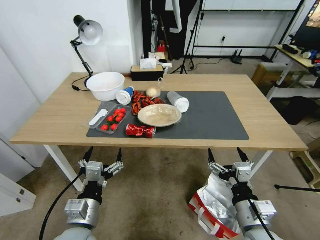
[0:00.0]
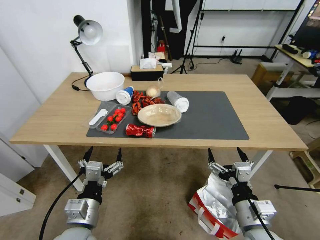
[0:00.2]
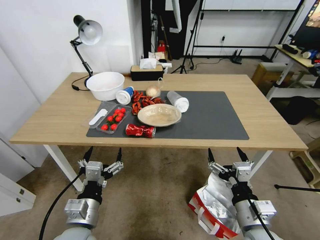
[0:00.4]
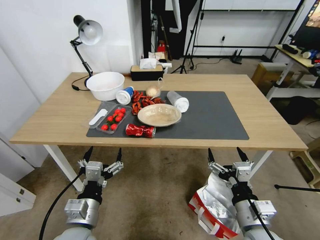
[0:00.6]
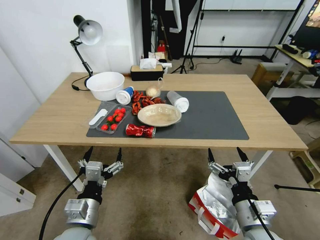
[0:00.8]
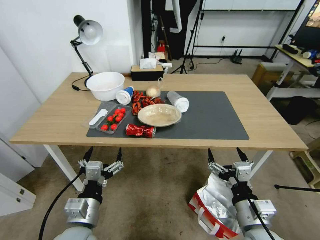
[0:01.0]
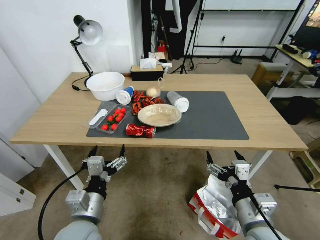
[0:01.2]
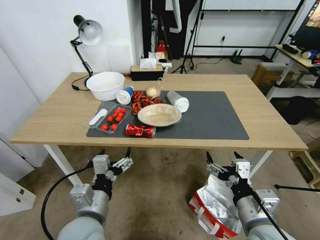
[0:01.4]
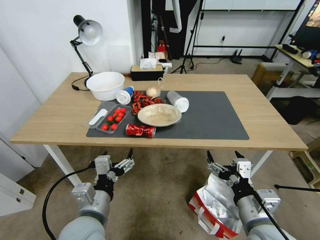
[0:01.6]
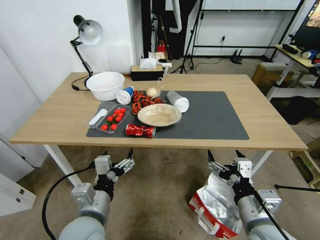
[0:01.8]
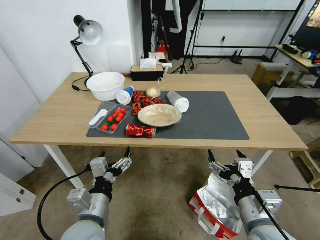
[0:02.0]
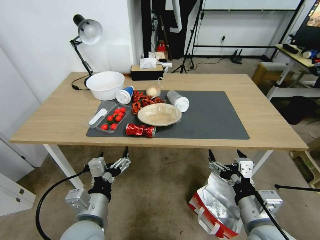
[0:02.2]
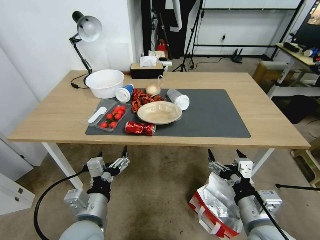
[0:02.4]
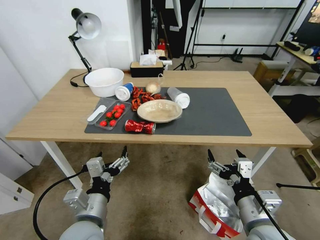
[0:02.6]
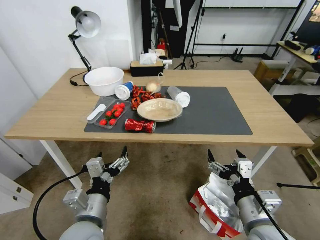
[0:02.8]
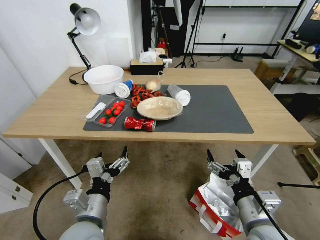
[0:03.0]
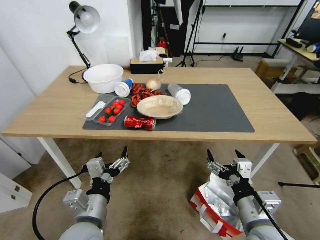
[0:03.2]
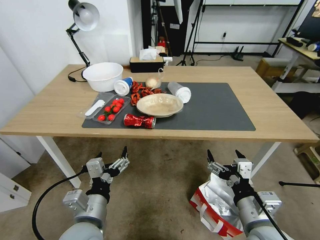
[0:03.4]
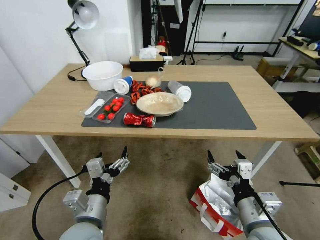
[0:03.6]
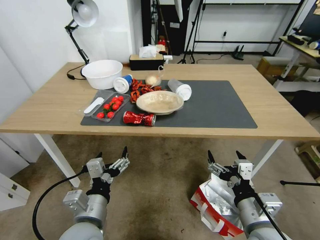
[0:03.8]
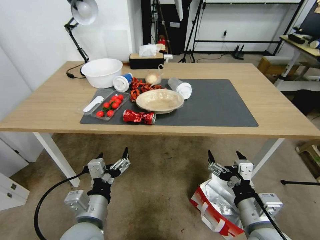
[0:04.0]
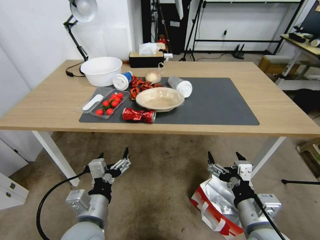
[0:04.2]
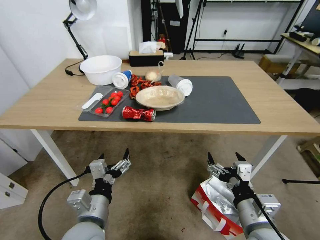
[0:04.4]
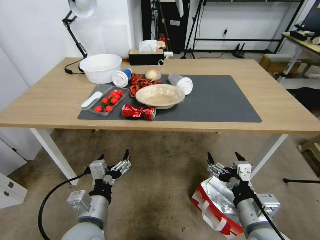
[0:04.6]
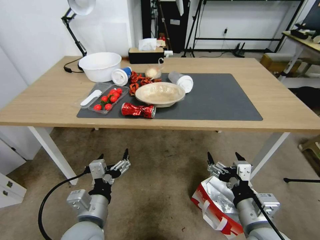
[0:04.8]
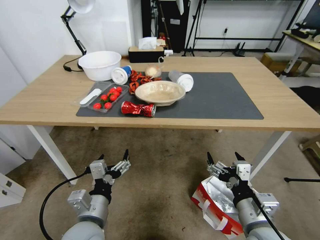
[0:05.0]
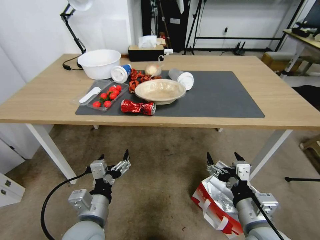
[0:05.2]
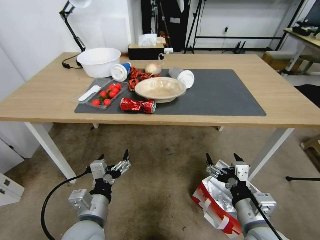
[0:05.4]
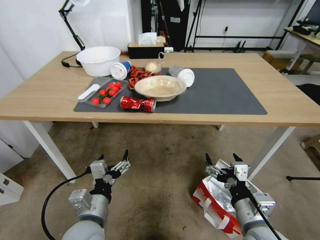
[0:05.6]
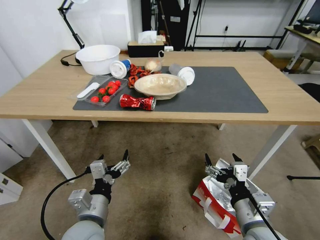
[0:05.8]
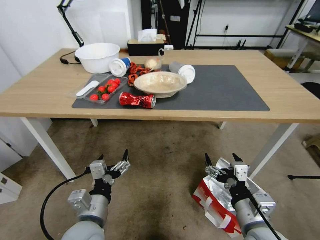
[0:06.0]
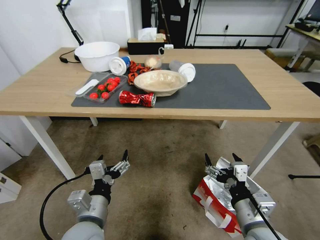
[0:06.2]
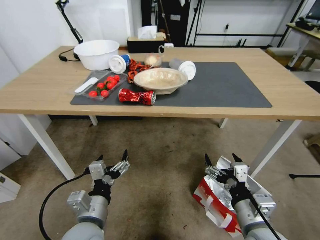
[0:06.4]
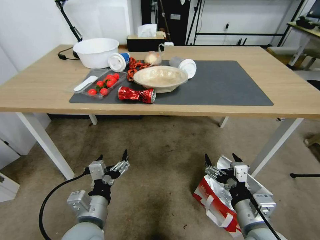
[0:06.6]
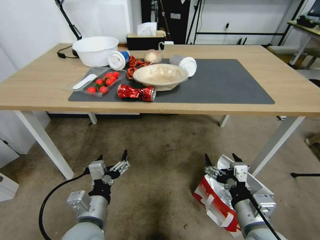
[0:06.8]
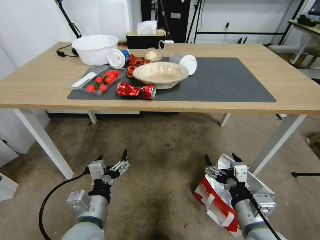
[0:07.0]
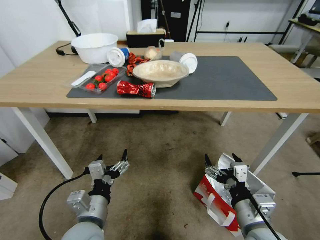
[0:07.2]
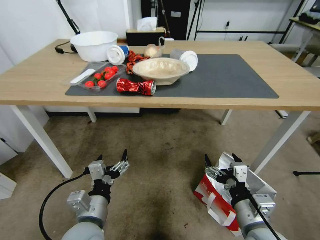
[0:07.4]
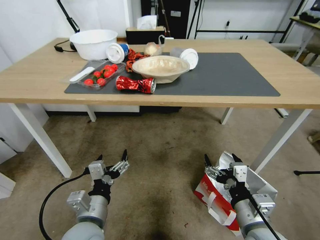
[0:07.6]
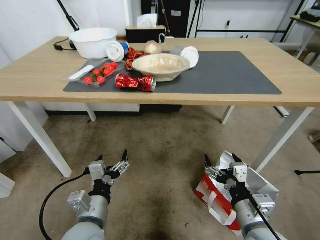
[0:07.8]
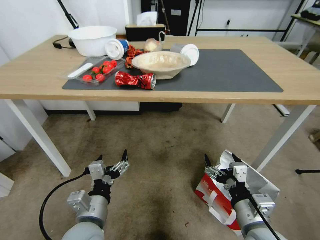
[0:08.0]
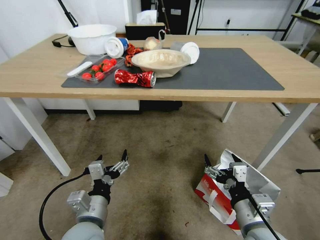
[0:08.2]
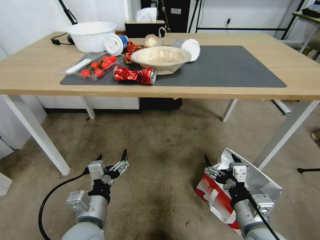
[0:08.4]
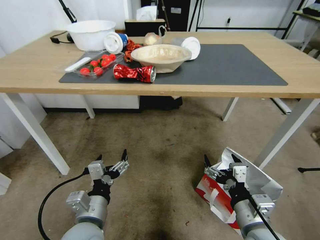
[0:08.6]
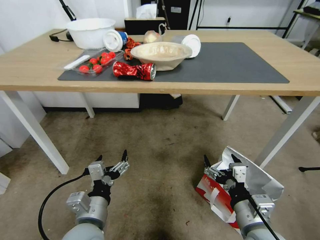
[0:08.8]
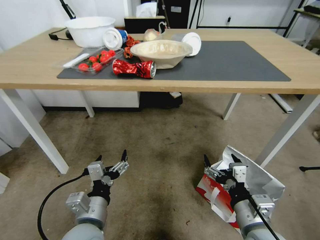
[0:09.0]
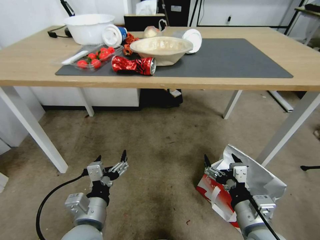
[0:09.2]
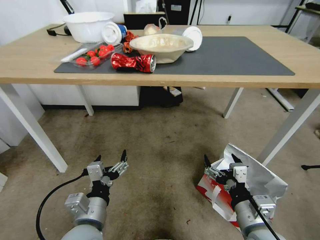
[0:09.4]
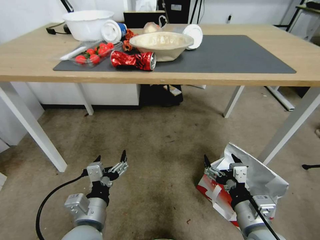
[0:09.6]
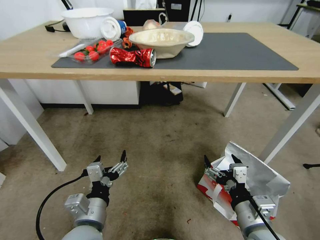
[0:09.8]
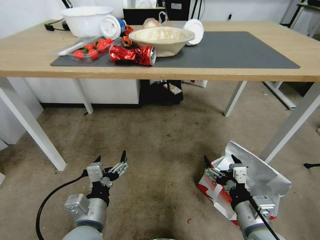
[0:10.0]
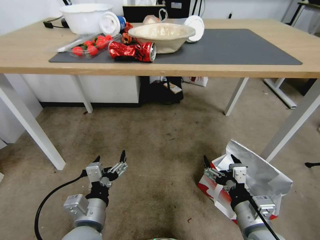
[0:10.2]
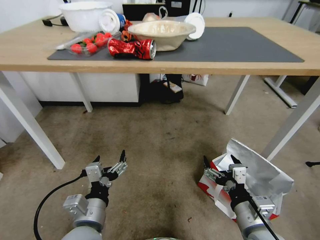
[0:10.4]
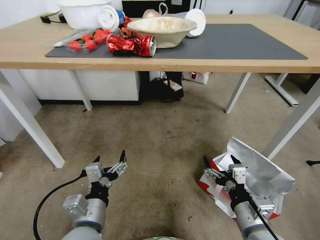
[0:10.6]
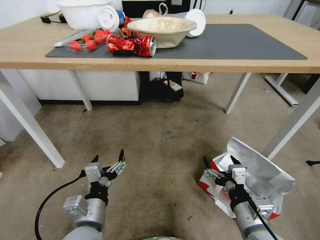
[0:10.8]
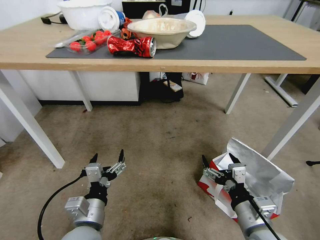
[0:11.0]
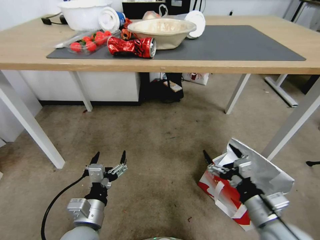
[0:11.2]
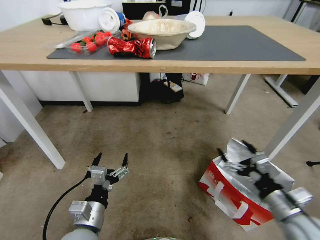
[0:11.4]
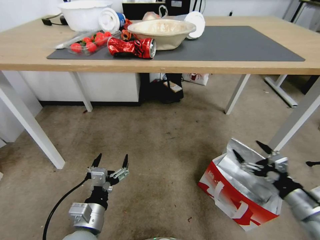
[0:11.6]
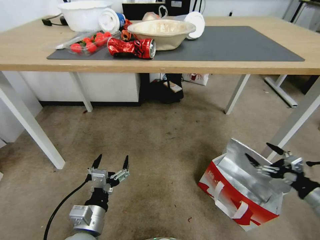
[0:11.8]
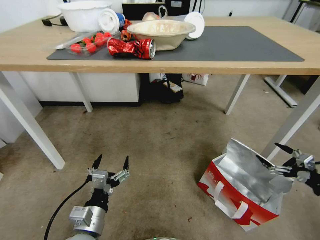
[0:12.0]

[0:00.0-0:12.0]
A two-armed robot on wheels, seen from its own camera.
Task of the whole recording: Pick up the food delivery bag from the floor and place it on the table.
0:10.4 to 0:12.0: The right gripper is displaced to the right by approximately 30 cm.

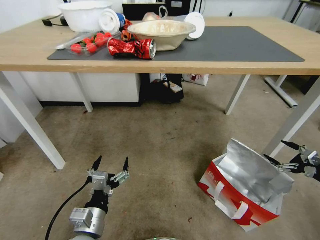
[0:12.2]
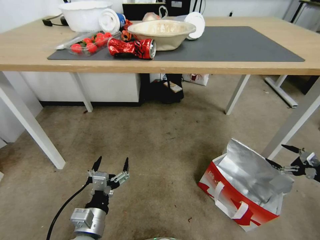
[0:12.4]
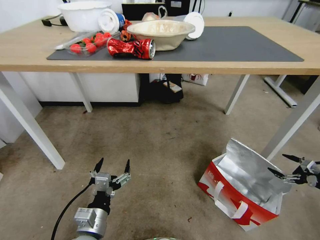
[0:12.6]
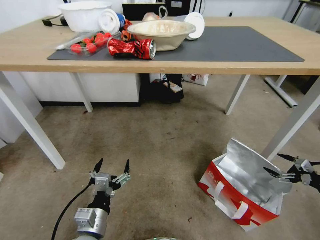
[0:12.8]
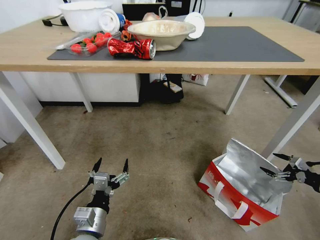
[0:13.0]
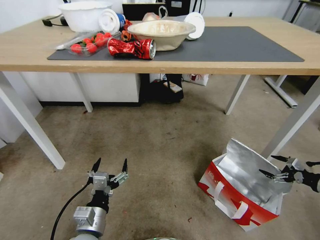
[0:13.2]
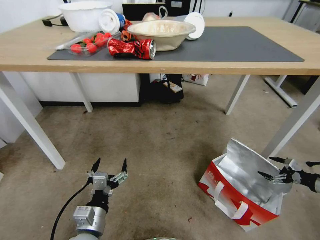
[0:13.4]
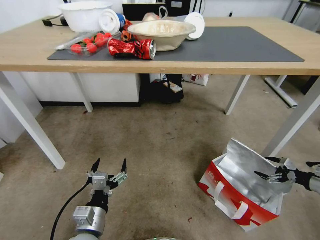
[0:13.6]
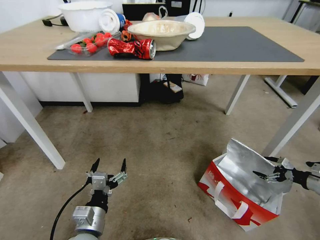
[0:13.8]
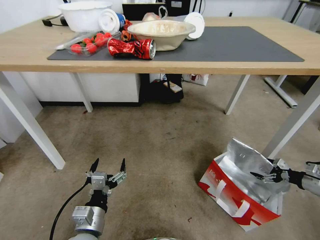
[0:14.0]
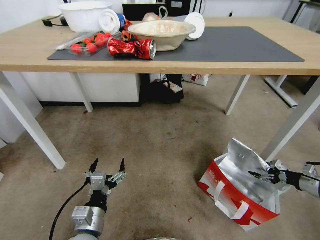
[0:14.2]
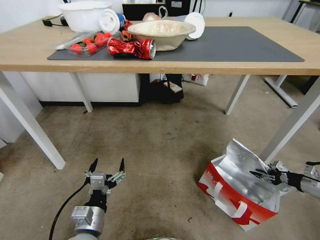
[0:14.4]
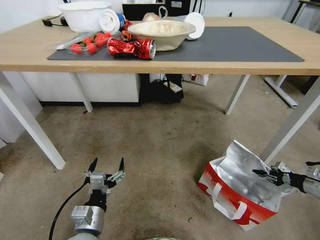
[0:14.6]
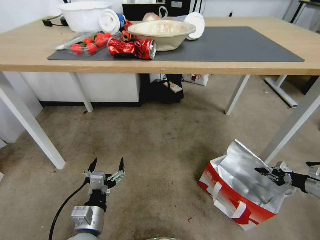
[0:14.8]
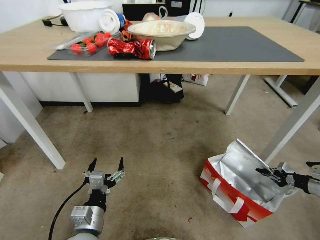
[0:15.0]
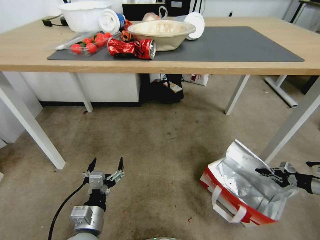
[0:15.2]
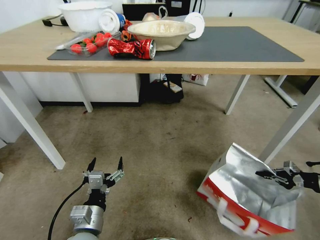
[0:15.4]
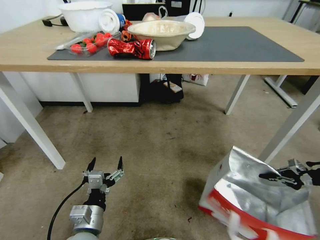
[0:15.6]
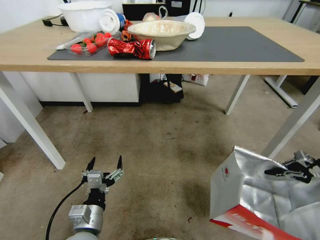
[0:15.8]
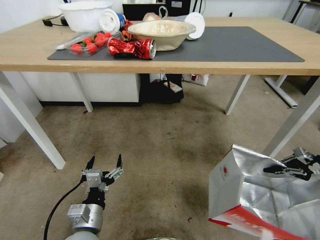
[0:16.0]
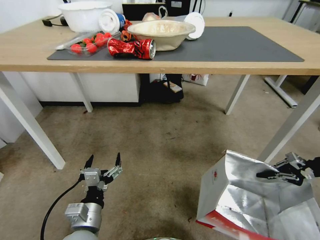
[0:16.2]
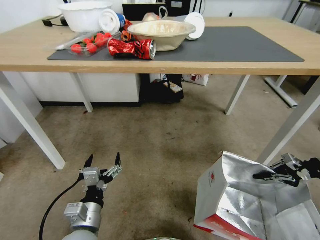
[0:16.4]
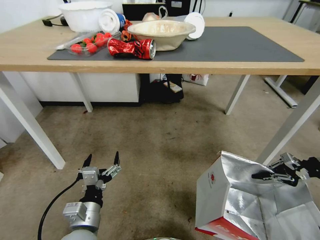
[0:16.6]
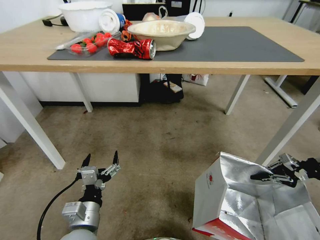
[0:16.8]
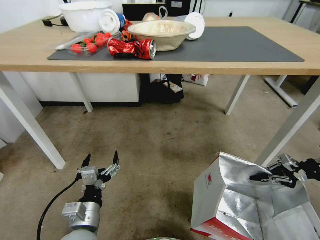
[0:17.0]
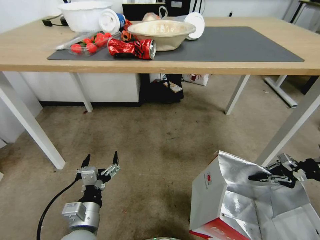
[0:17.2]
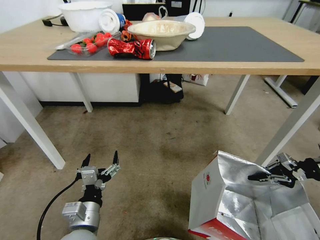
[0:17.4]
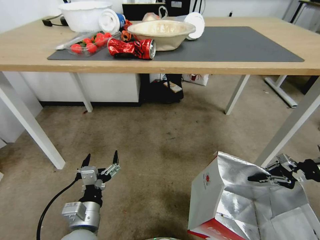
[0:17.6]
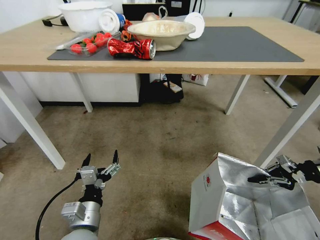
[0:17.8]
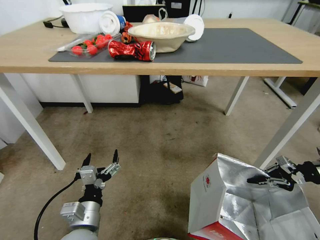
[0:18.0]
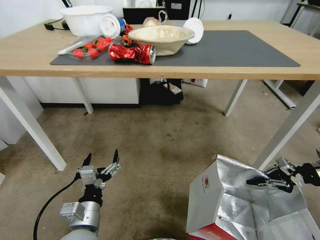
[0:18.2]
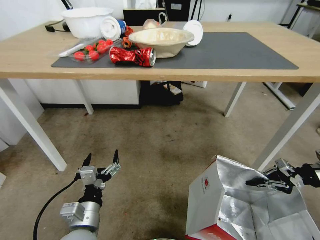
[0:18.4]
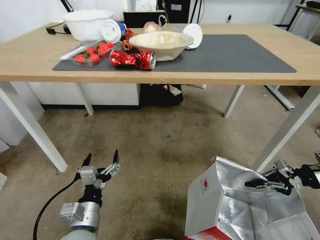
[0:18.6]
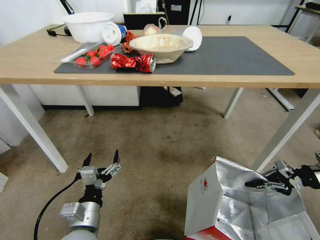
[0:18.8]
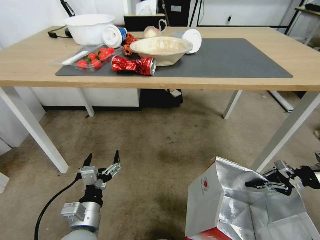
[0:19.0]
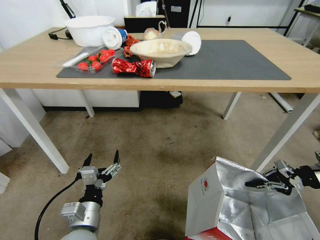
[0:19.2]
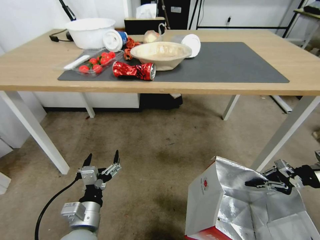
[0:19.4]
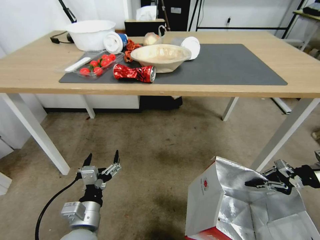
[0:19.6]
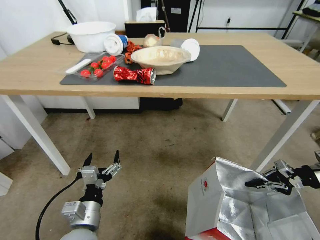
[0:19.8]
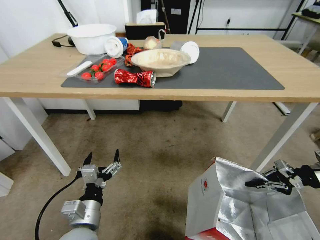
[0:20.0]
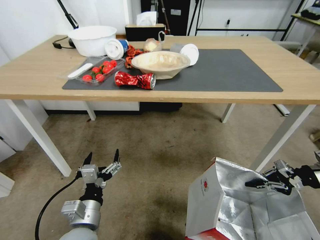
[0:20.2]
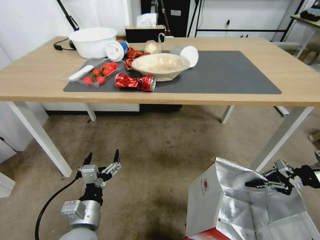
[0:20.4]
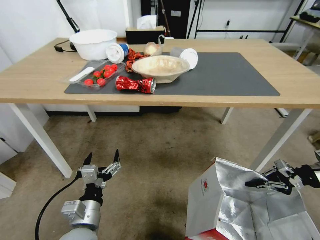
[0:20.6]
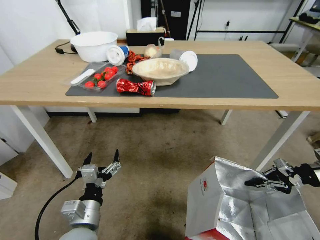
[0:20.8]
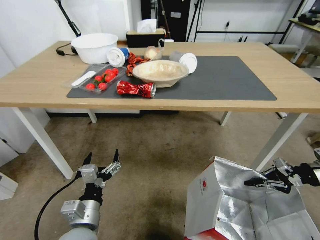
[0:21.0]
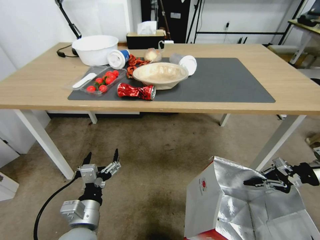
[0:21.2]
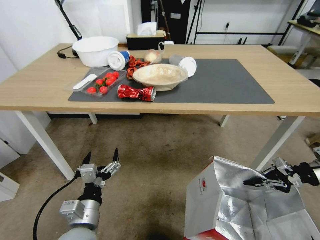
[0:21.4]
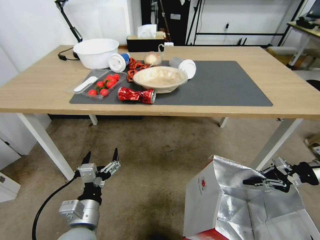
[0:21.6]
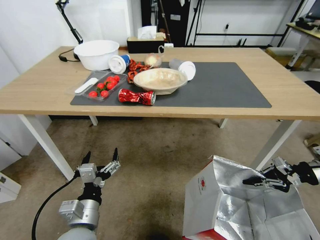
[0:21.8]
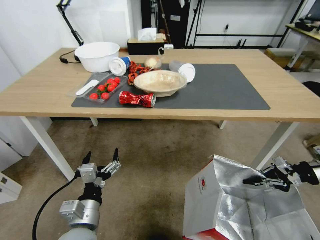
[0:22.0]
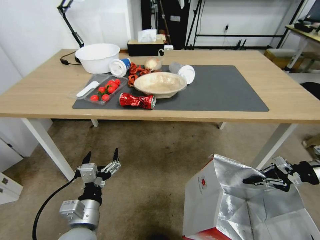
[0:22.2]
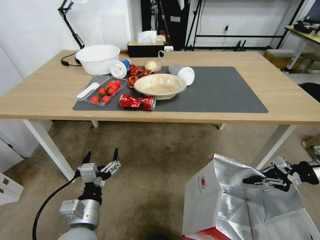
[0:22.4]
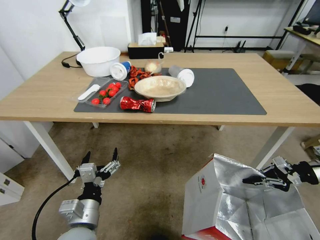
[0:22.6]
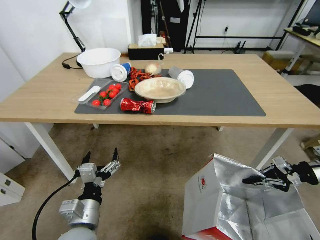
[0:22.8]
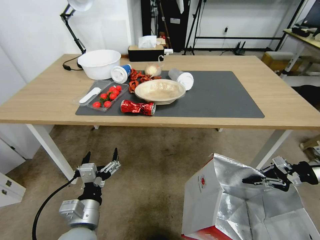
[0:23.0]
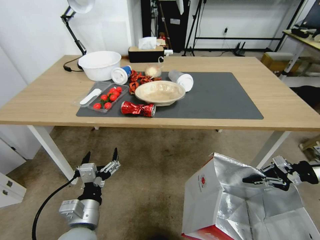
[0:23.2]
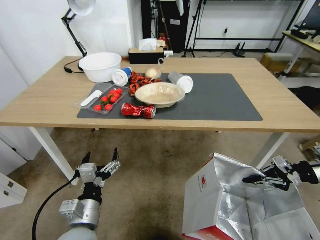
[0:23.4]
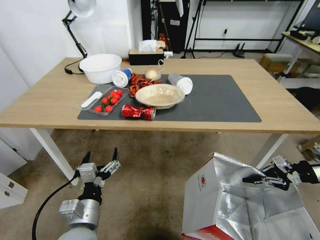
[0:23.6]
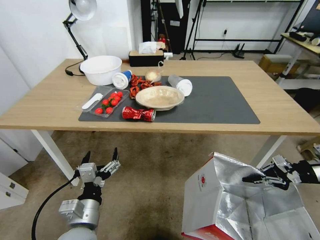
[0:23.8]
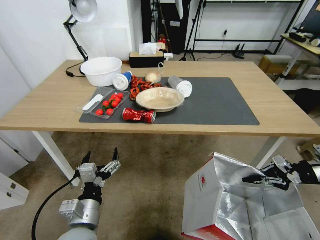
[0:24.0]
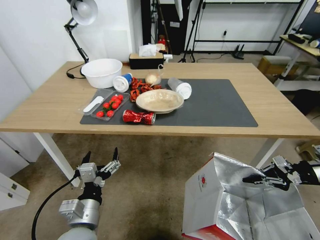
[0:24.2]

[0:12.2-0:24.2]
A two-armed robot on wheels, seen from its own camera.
Task of the whole recording: Pick up the food delivery bag from the floor and place it on the table.
0:12.2 to 0:13.8: The right gripper shifts about 10 cm downward and forward.
0:13.8 to 0:15.2: The right gripper closes its fingers.
0:15.2 to 0:16.6: The right gripper travels upward and forward by roughly 15 cm.
